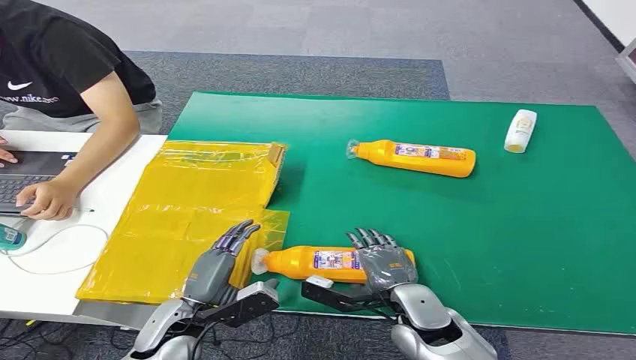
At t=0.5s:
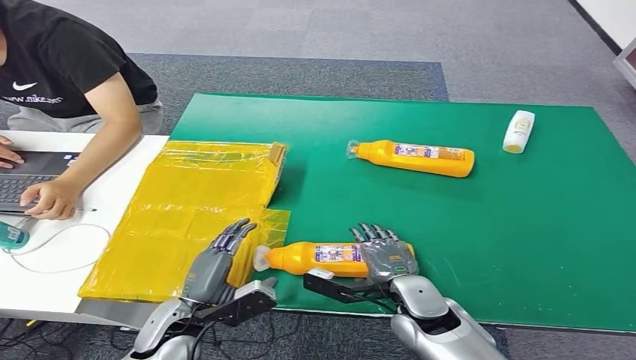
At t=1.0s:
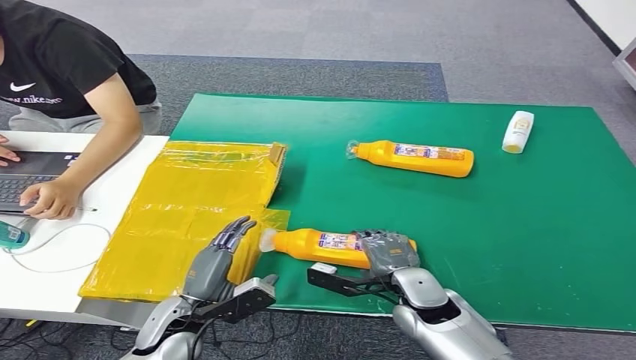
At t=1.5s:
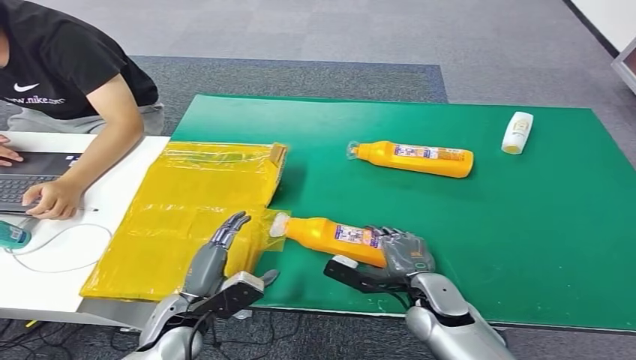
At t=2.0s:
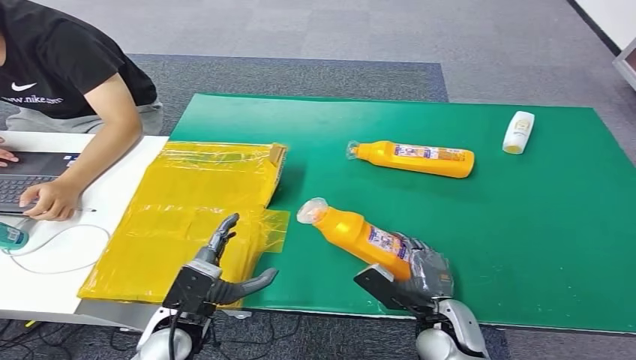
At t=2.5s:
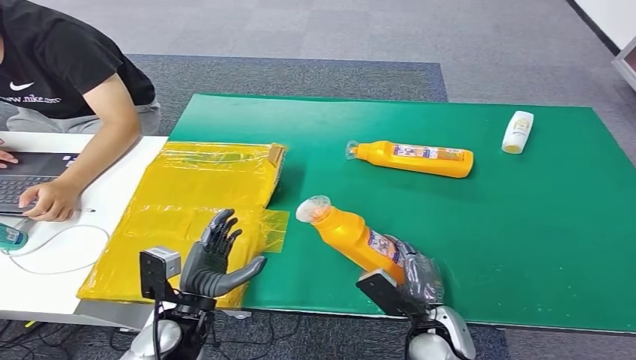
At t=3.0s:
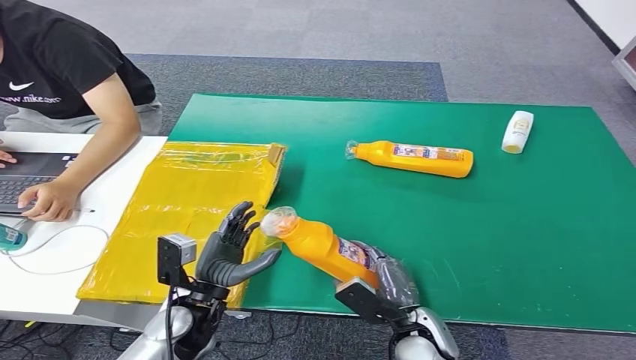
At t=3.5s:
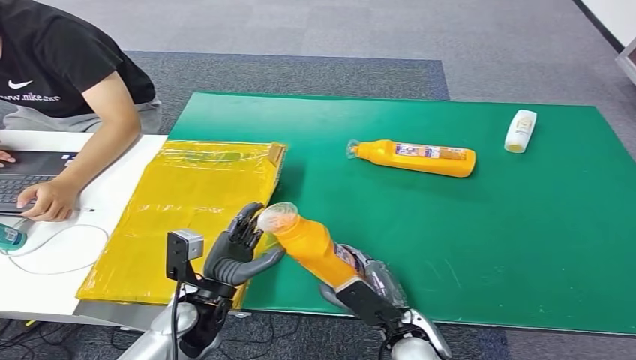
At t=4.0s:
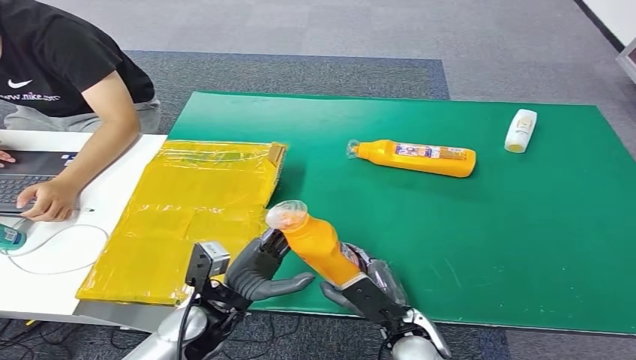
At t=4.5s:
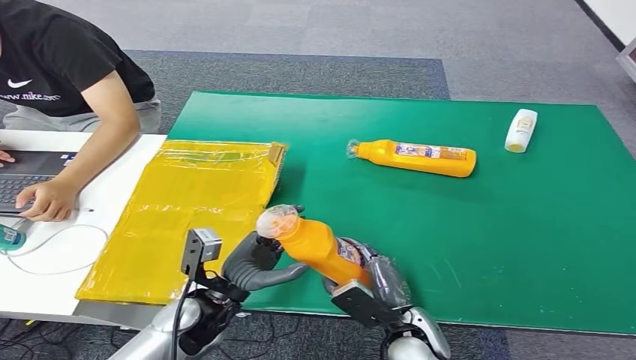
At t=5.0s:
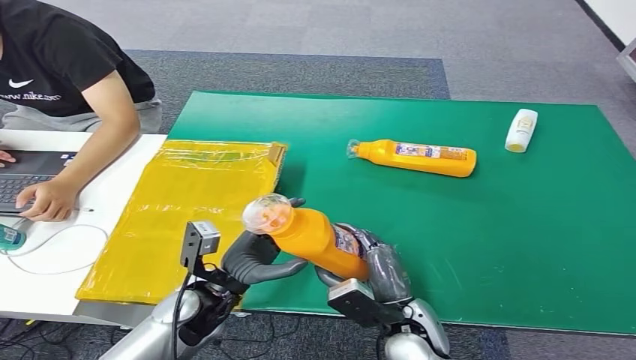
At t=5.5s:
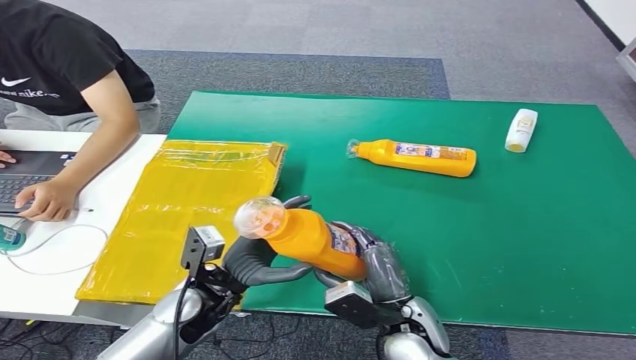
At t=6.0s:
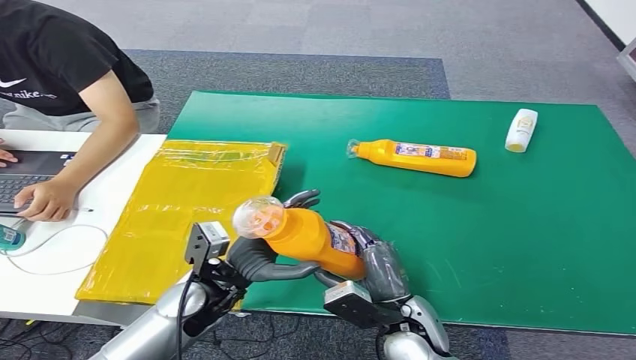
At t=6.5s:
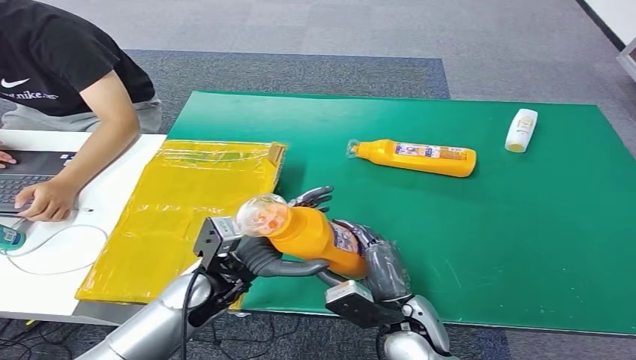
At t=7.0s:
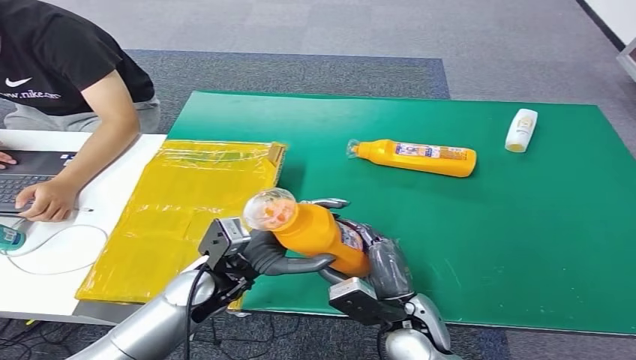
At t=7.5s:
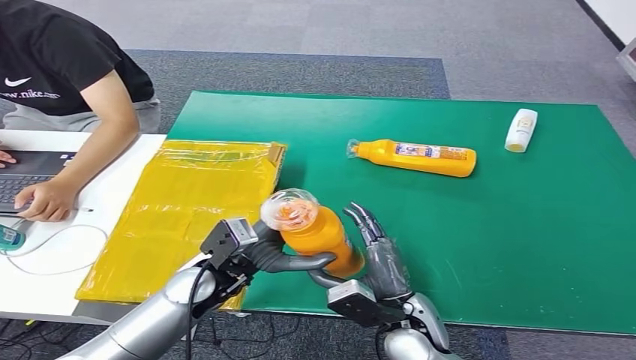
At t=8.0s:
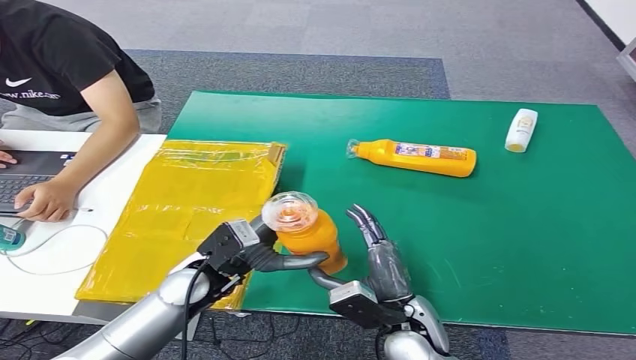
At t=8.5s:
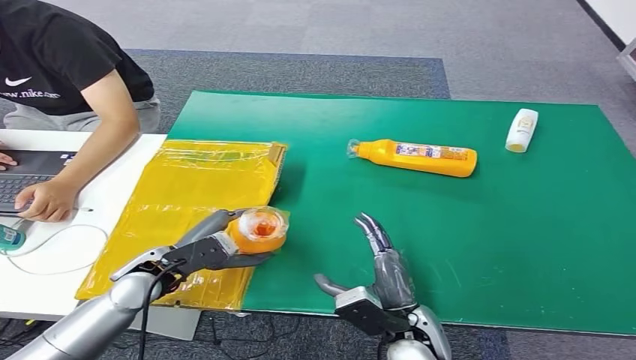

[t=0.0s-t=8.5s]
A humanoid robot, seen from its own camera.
Step, t=0.0s to t=3.0s: Pick up the bottle from the table.
Step, t=3.5s to t=8.5s: Turn the bottle to the front side.
t=2.0s to t=4.0s: The right hand shifts by roughly 5 cm.
t=4.0s to t=6.5s: The right hand moves upward, approximately 5 cm. Meanwhile the left hand is displaced forward by some 5 cm.
t=6.5s to t=8.5s: The left hand moves to the left, roughly 10 cm.
